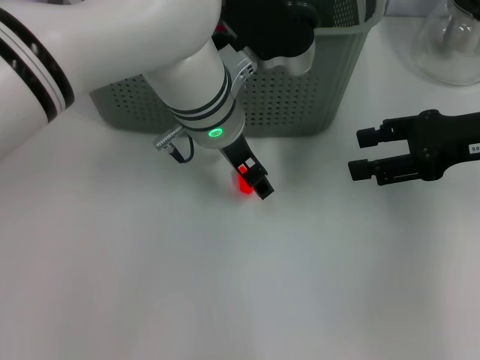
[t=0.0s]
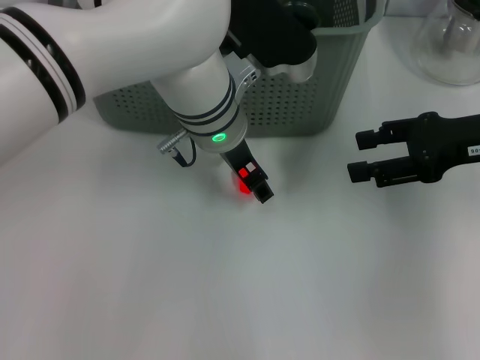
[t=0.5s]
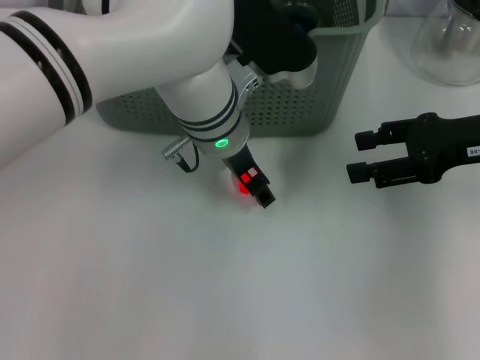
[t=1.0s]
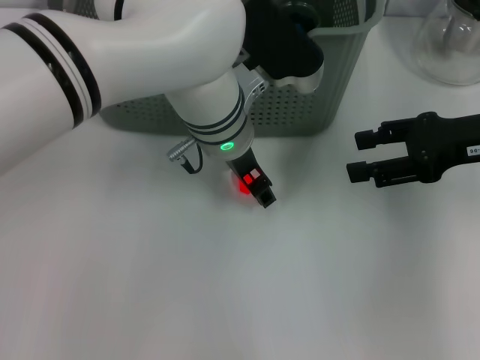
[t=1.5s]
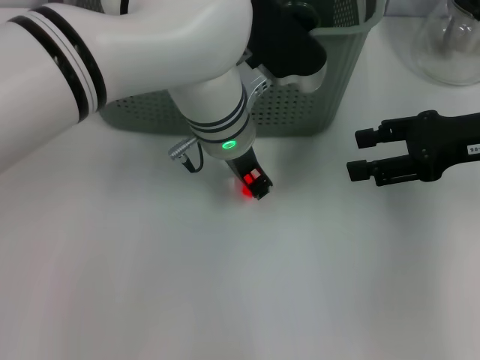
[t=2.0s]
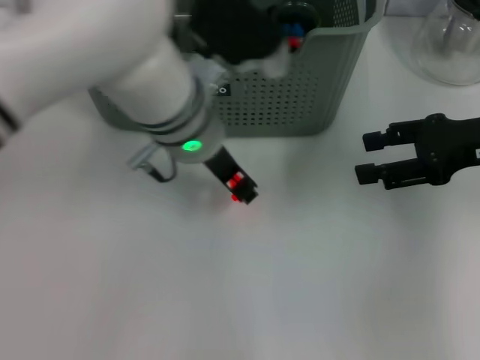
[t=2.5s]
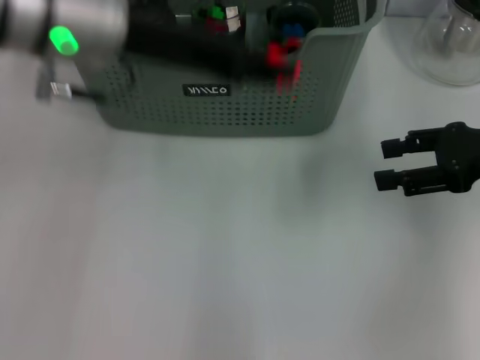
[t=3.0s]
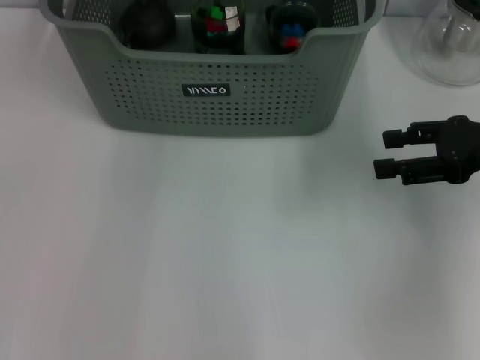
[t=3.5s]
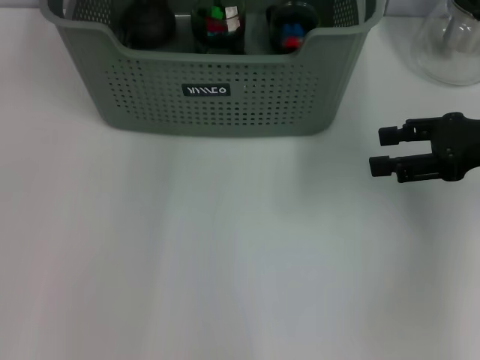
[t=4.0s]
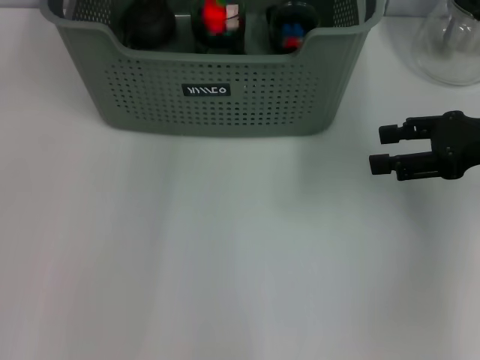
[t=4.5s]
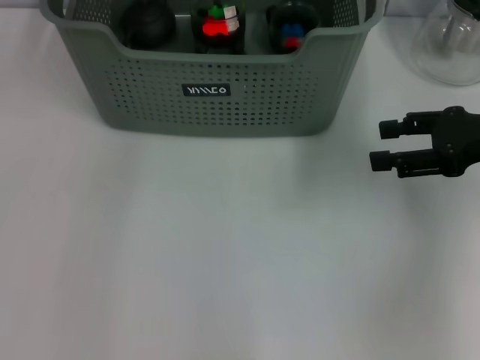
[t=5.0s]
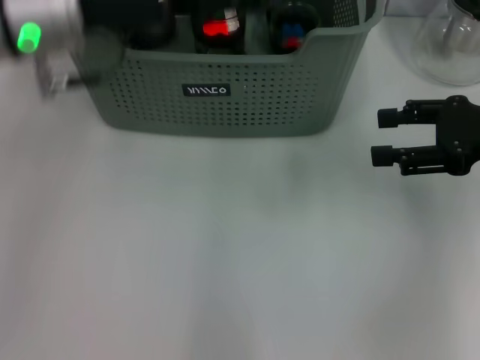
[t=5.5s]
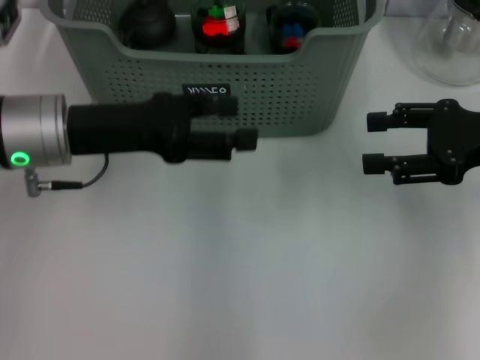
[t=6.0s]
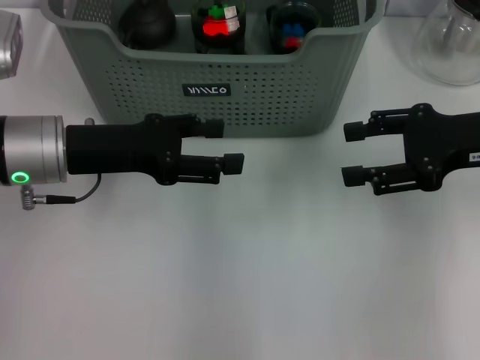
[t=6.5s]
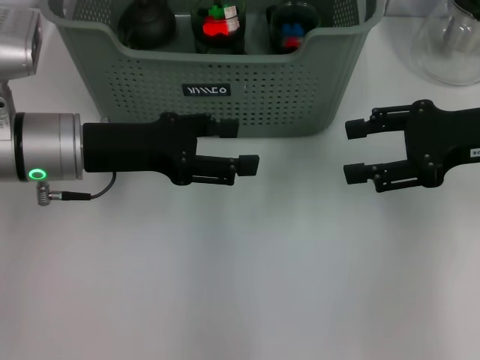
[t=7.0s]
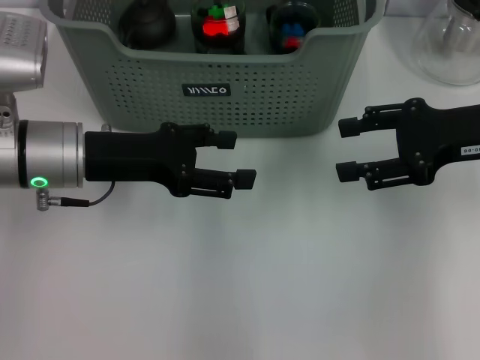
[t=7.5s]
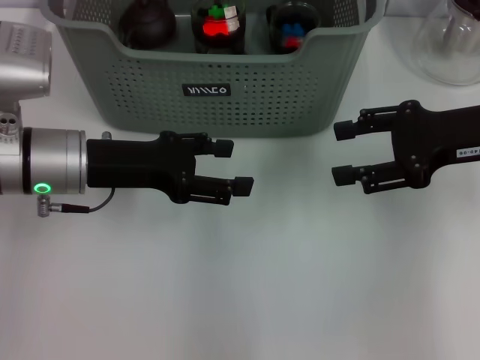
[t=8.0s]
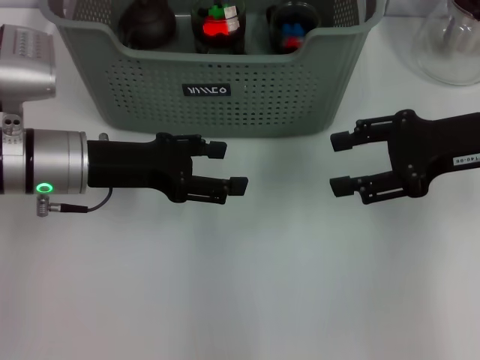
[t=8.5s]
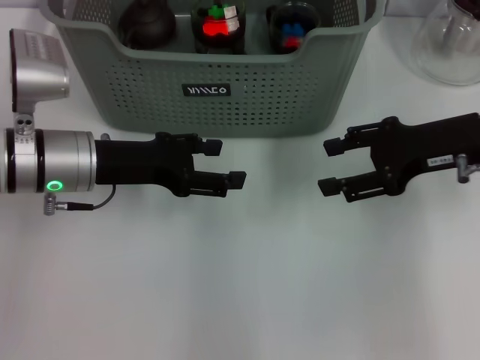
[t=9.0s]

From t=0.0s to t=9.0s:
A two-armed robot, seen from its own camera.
Task of the whole recording: pick up the teacup on the table and place it into the storage bin, pick up the block on the table and place it into the storage bin.
Step, from t=0.0s to t=2.0s: Grasp the orange block with left gripper.
Step, from t=2.5s to t=4.5s: Place the orange block in the storage box with left gripper.
From t=0.0s to t=2.0s: The left gripper closes.
From t=2.0s to t=4.5s: The left gripper moves forward, upward and to the left, approximately 15 cm.
From t=4.5s to t=7.0s: The left gripper travels backward, downward and to the left by approximately 20 cm, and opens.
From t=7.0s to t=9.0s: The grippers move only a little.

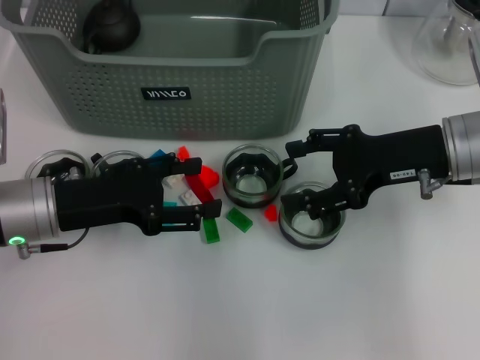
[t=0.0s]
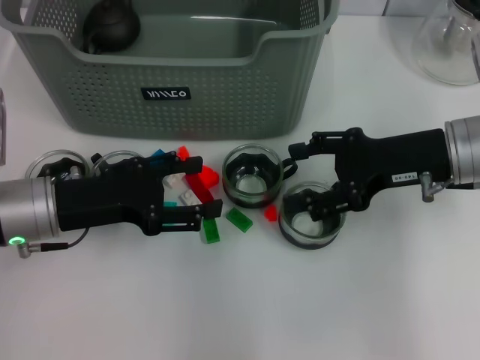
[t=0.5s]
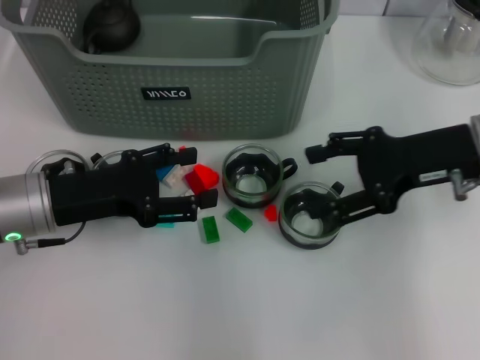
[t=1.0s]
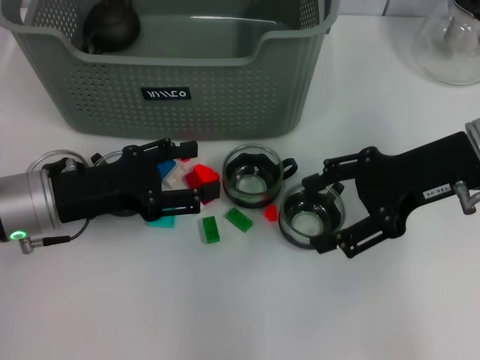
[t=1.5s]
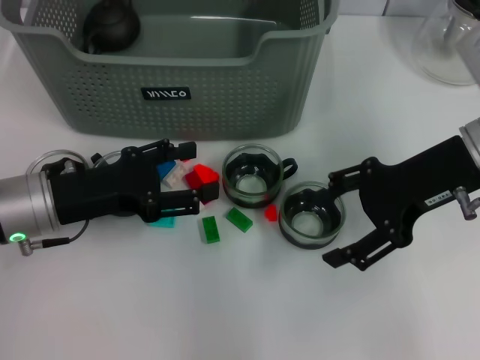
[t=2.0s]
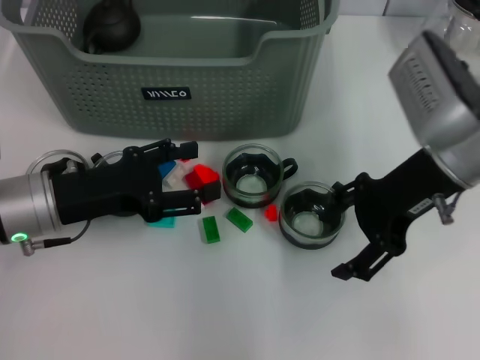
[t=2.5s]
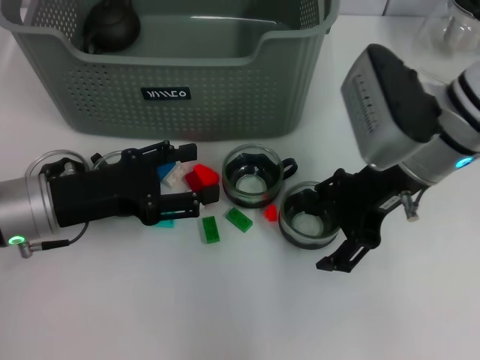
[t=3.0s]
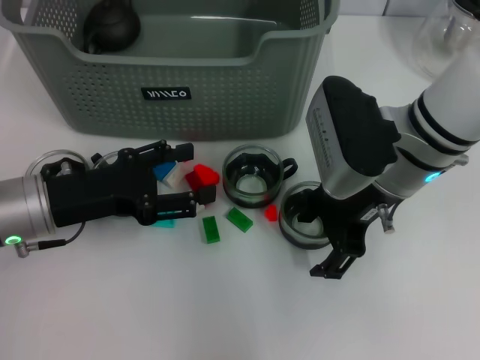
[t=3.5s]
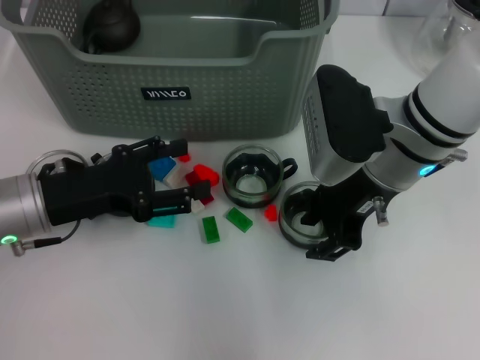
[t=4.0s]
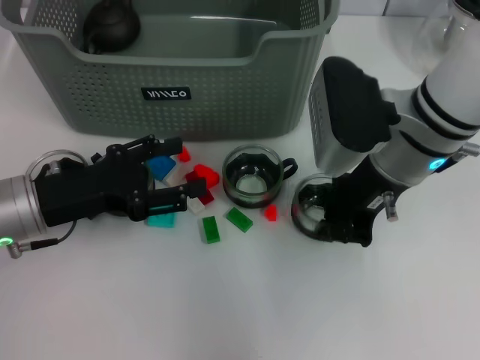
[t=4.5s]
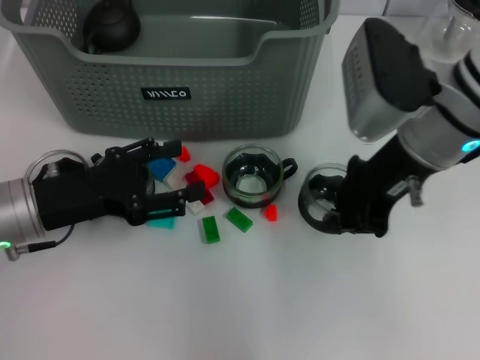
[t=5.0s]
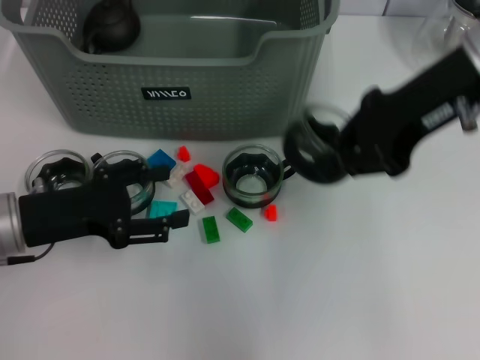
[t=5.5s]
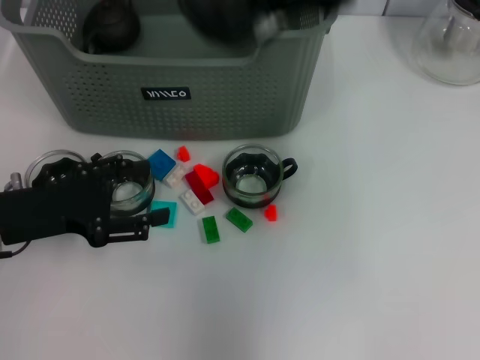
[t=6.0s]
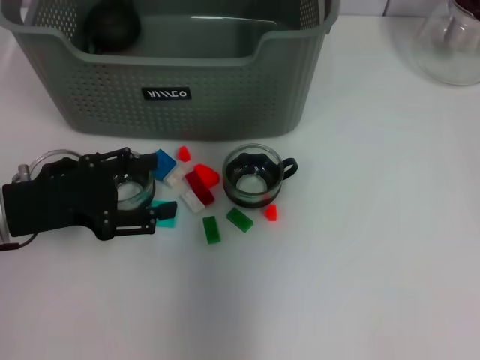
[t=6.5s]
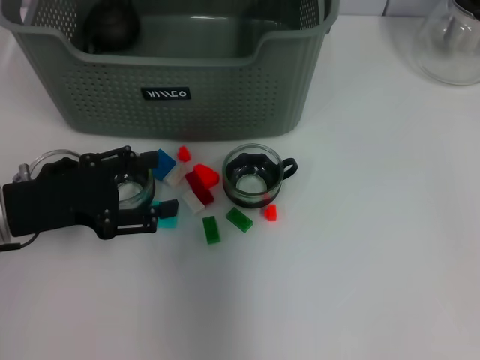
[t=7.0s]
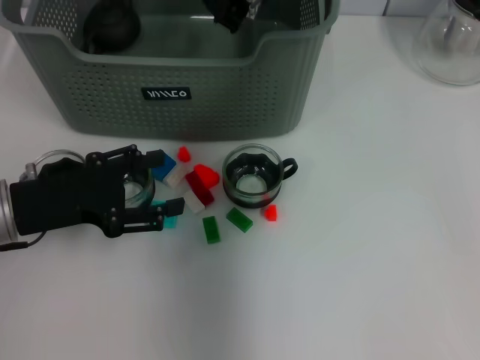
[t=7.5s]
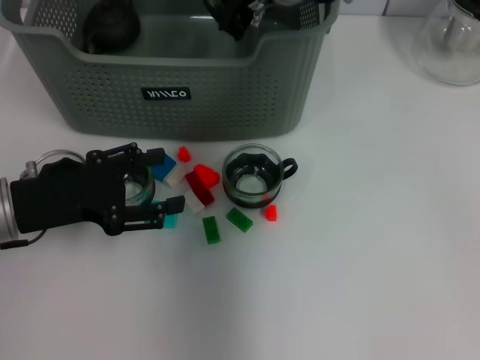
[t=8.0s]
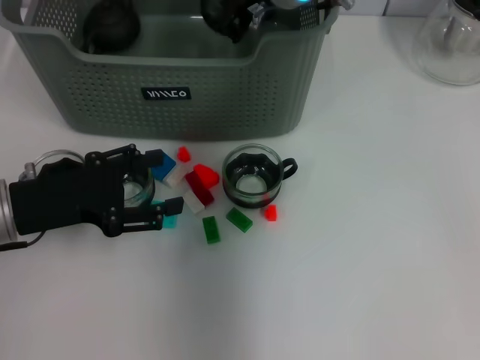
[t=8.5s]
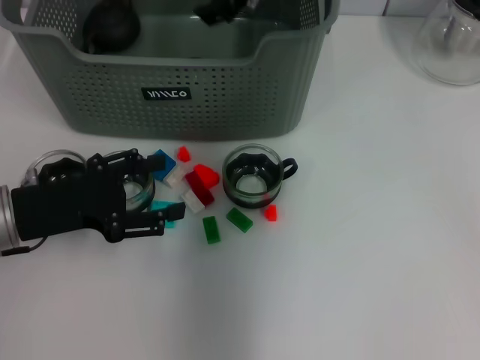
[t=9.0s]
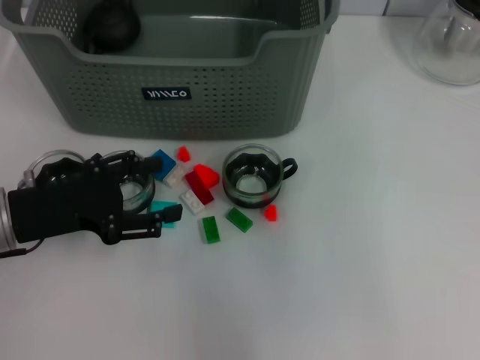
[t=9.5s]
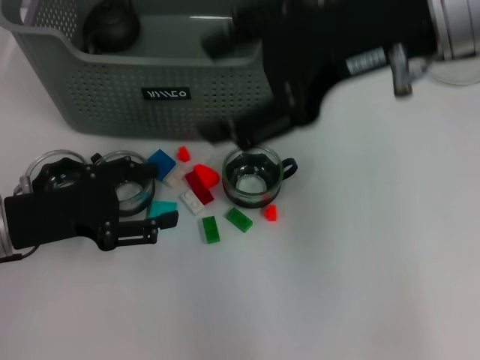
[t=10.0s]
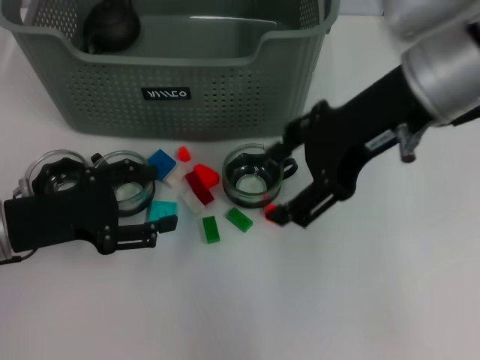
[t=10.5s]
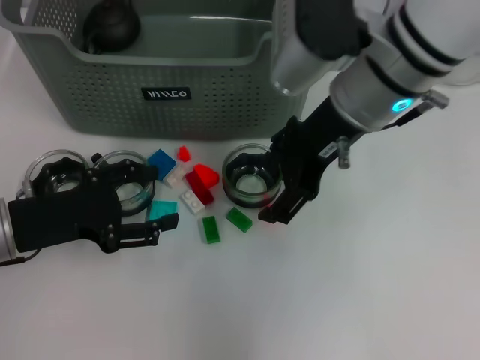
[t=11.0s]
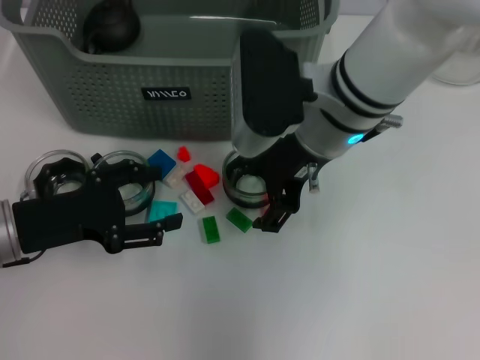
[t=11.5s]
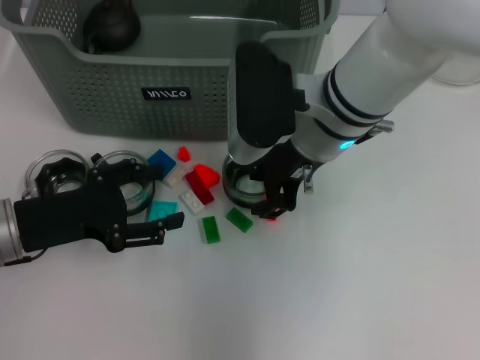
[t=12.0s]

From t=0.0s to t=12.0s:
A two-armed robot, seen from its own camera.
Task of the whole recording: pick up the teacup on the table and place it into the storage bin, pick up the block on the table and place it into the storage bin.
Step, from t=0.0s to t=4.0s: Grasp the cup with right gripper.
Step, from t=4.5s to t=8.5s: Place the cup in the storage box with right gripper.
From t=0.0s to t=2.0s: The grippers make only small movements.
From t=2.0s to t=4.0s: The right gripper goes about 10 cm to the left.
From t=4.0s to t=6.0s: The right gripper shifts some 20 cm upward, and closes up.
From t=6.0s to t=8.0s: The right gripper travels downward, to the left and forward by roughly 20 cm.
From t=8.0s to t=10.0s: The right gripper moves backward, to the right and upward, about 20 cm, and opens.
From t=10.0s to t=12.0s: The right gripper travels downward and to the left by about 15 cm.

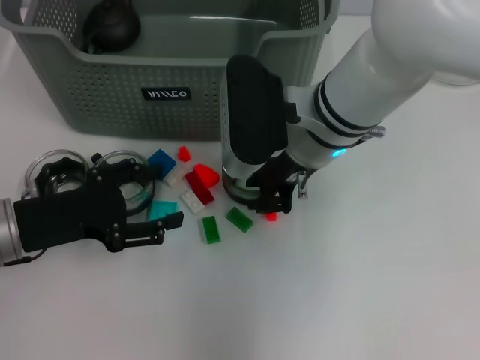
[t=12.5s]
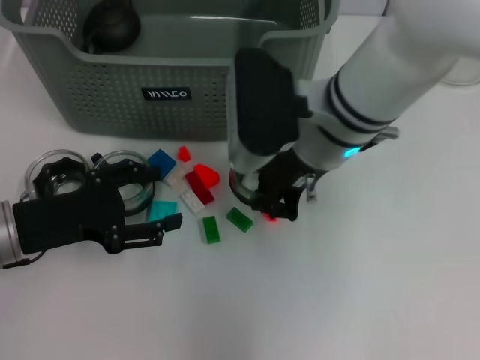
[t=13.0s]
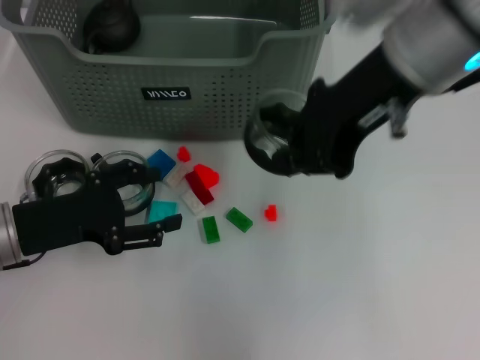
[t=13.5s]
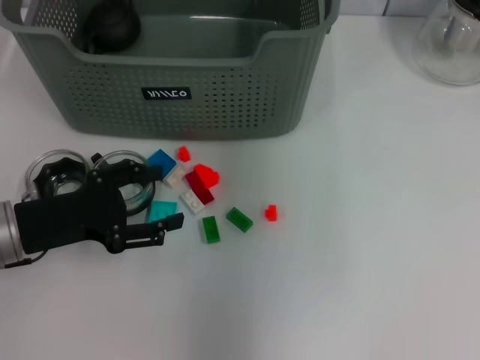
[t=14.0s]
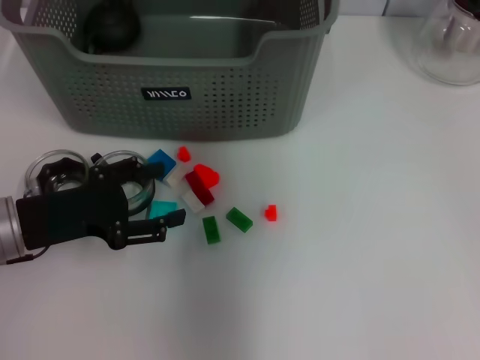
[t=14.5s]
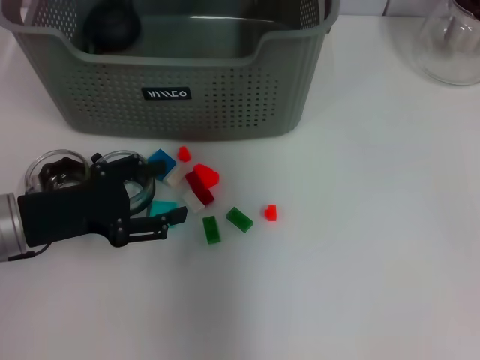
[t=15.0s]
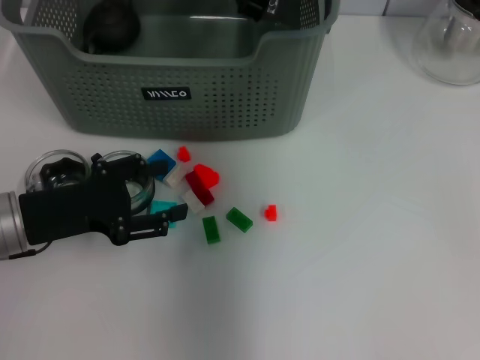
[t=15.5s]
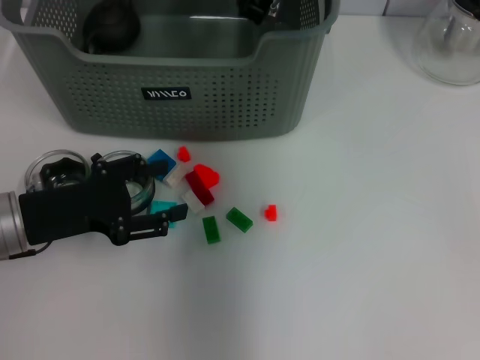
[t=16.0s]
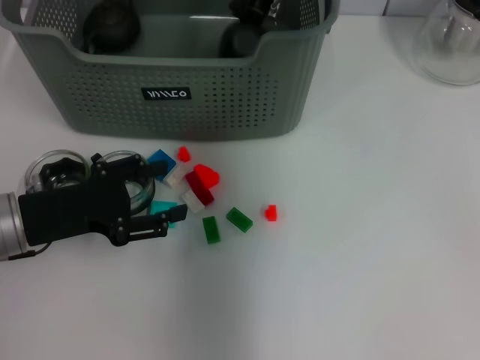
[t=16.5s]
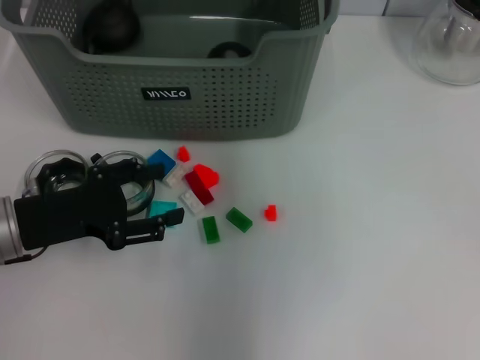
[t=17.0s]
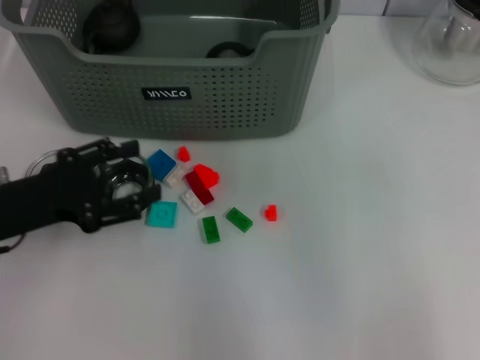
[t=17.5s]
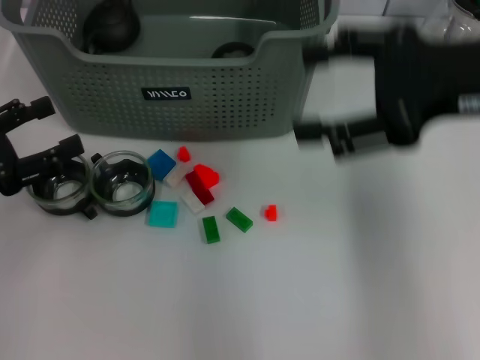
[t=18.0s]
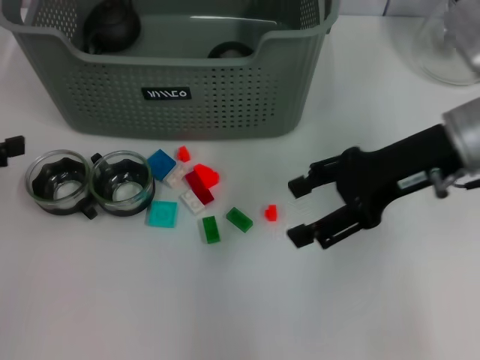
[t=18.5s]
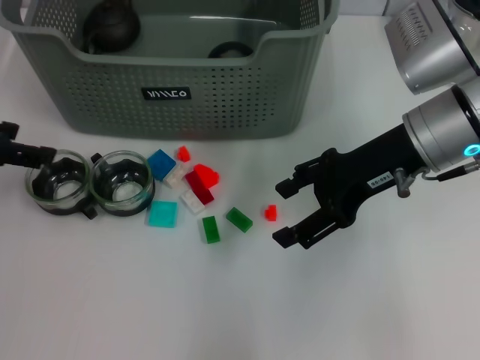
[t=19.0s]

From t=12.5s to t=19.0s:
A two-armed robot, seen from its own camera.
Task of the whole recording: pick up the teacup on the table and place it into the storage bin, pick up the block on the table and place it into the storage bin.
Step, from t=13.0s to t=16.5s: Place the cup in the storage box with right gripper.
From t=12.5s to t=14.5s: The right gripper is displaced upward and forward by approximately 20 cm, and closes up.
From t=14.5s to t=17.0s: The right gripper reaches approximately 10 cm downward, then returns, and opens its fingers.
From t=17.0s to t=19.0s: The left gripper shifts some 15 cm upward and to the left. Meanwhile the right gripper heads to the right, downward and backward, covering some 20 cm, and opens.
